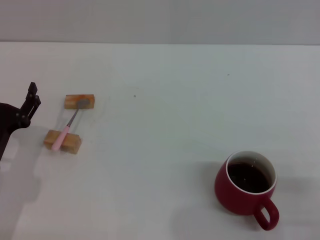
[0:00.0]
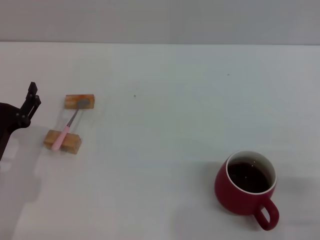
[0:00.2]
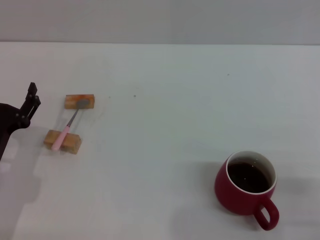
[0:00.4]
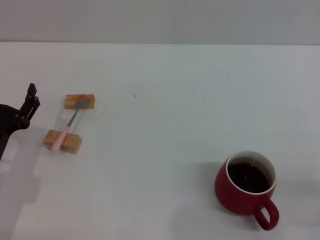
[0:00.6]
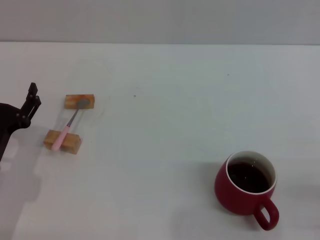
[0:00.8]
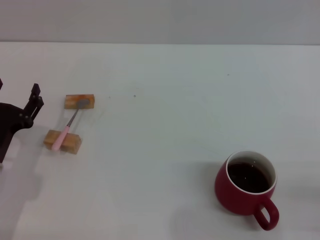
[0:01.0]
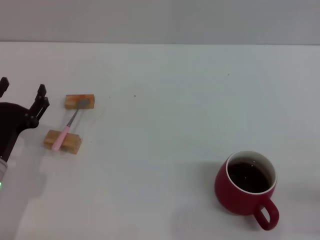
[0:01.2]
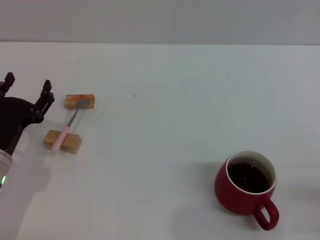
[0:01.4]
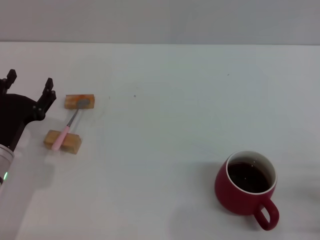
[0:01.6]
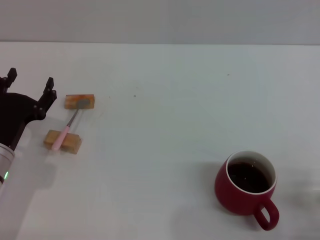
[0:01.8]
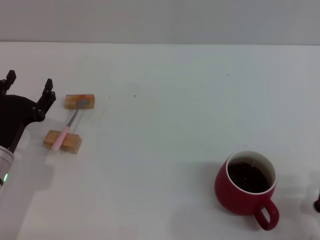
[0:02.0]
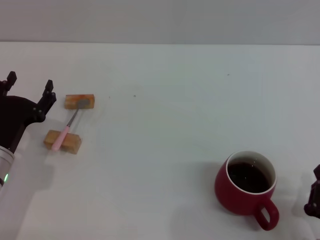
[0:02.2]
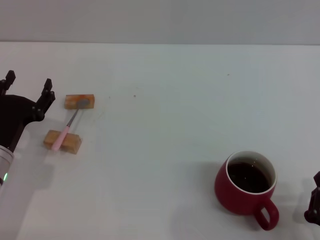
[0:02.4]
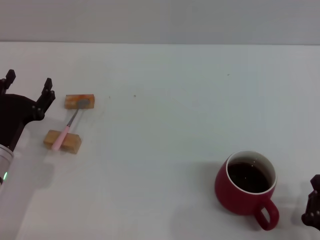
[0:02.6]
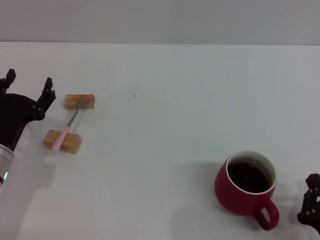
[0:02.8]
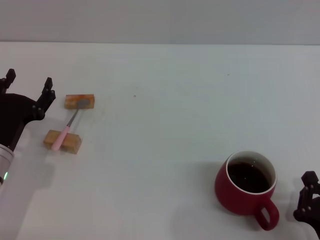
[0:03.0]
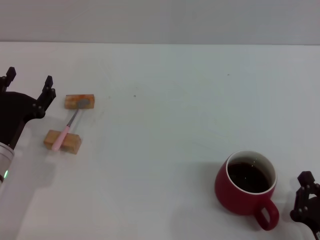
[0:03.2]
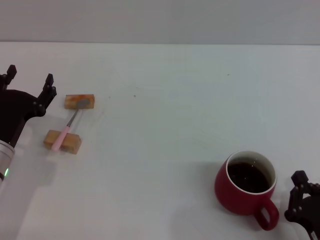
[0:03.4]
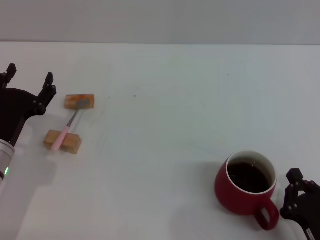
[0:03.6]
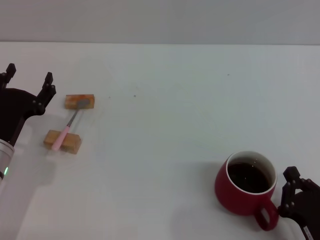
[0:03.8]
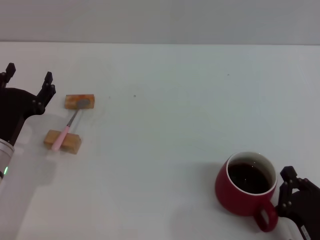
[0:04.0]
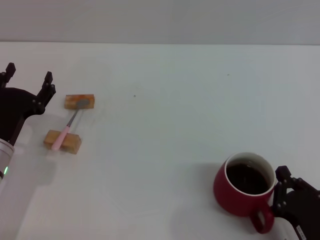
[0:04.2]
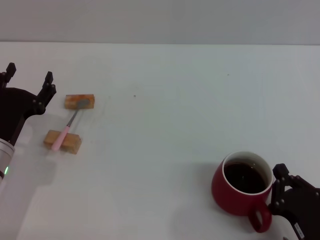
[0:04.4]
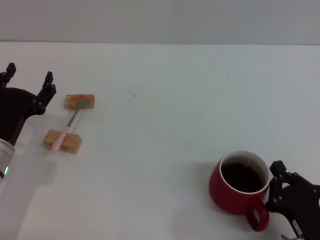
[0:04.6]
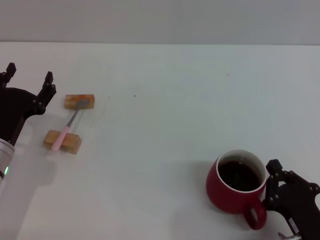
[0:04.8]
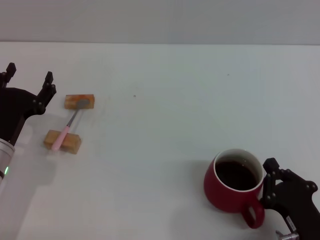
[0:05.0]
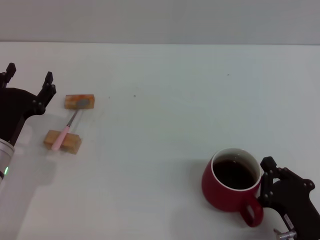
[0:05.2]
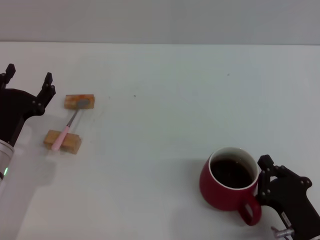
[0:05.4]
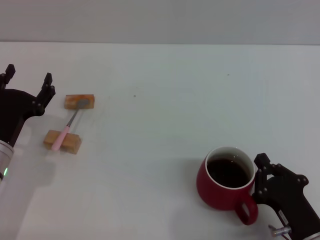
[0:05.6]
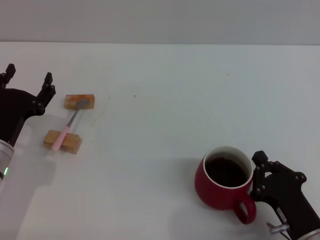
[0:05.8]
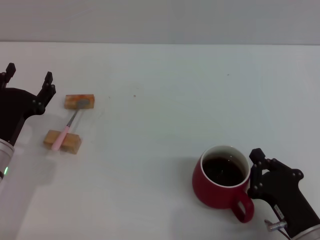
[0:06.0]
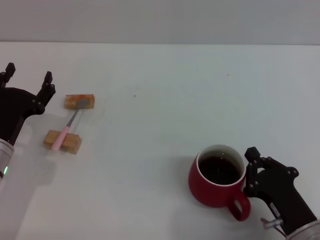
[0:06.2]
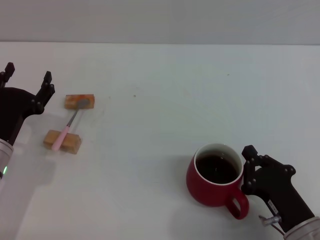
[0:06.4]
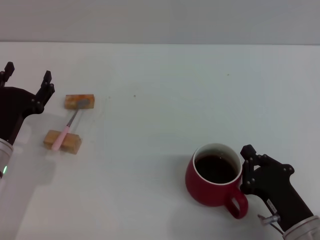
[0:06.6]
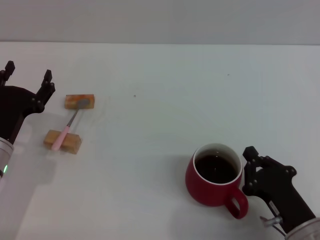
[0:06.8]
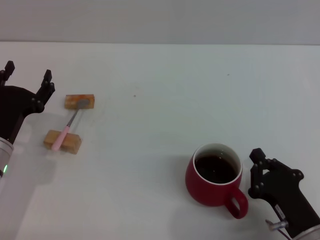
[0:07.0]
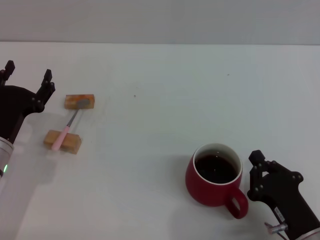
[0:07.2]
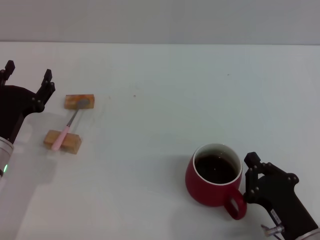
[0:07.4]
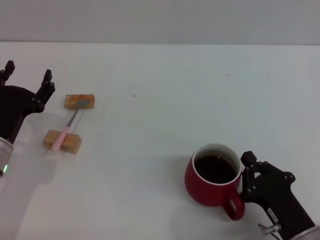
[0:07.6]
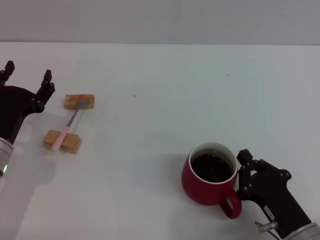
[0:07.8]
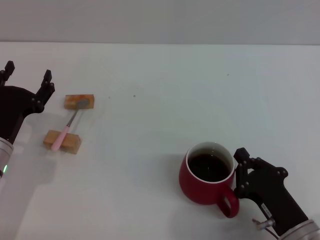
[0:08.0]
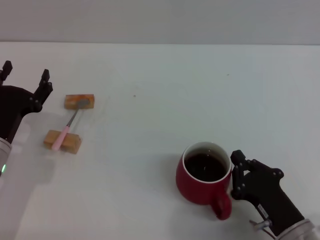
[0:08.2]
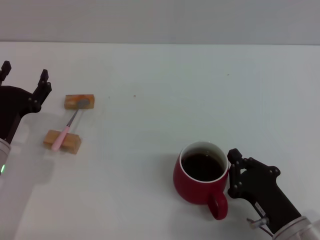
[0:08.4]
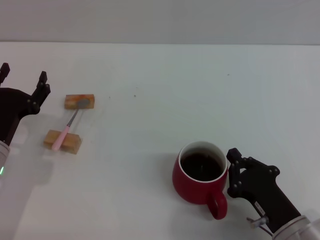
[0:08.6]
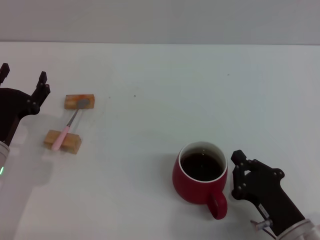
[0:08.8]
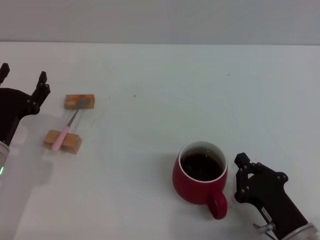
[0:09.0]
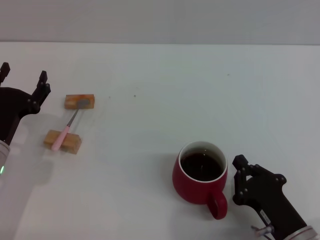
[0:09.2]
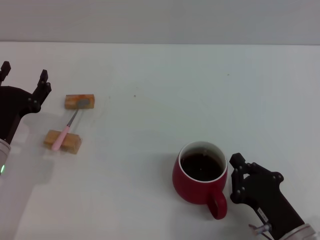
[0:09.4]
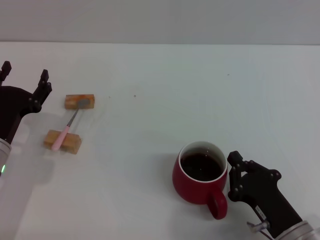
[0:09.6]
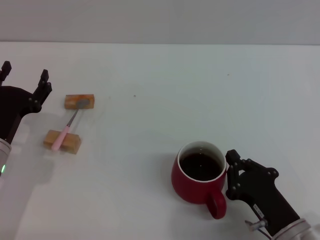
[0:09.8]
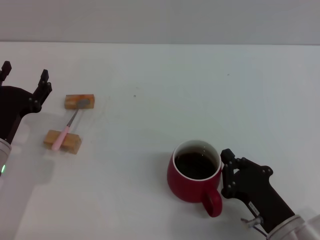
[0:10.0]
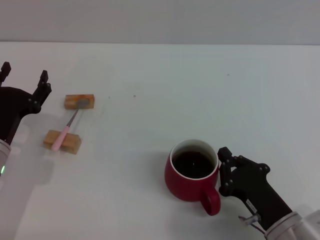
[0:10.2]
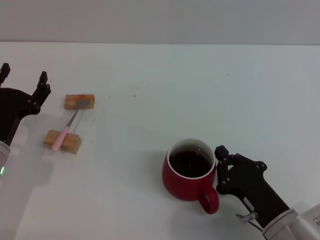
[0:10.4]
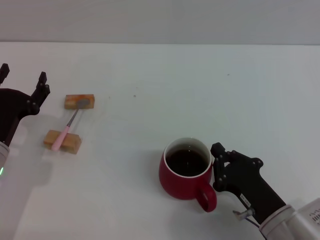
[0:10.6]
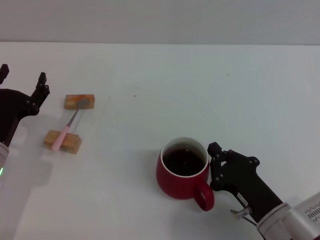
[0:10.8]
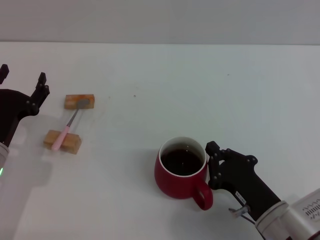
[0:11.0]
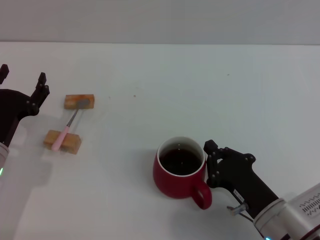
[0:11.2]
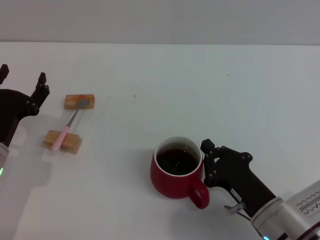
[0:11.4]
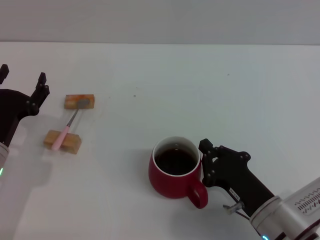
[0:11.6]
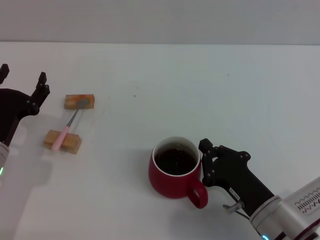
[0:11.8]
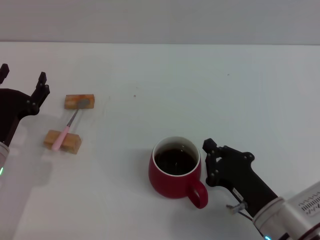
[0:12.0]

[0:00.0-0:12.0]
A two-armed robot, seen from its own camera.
Task of the whole recording: Move the red cup to the center, lift the pink spoon, stir it three times in the cup, and put the spoon into the cup.
0:01.6 to 0:03.0: The right gripper goes roughly 5 cm to the left.
0:03.0 to 0:06.0: The grippers move only a little.
0:06.0 to 0:07.6: The two grippers keep their place.
0:07.6 to 0:12.0: There are only small adjustments of the grippers.

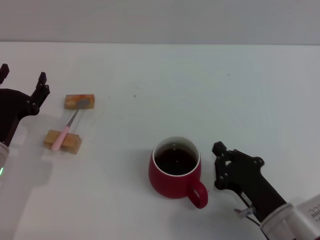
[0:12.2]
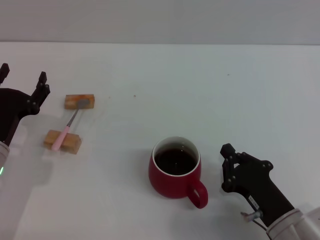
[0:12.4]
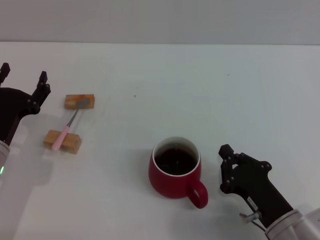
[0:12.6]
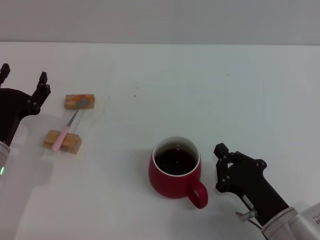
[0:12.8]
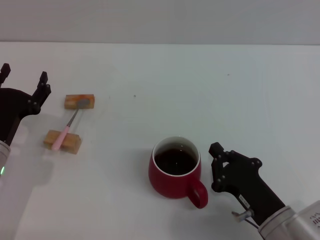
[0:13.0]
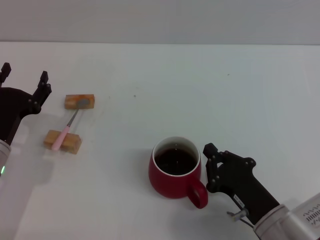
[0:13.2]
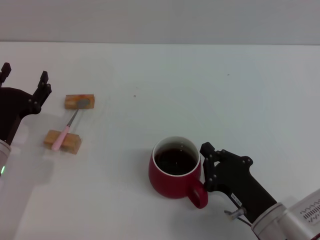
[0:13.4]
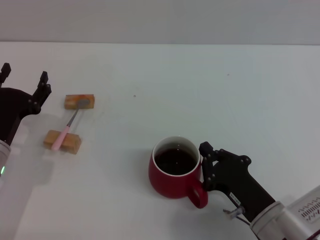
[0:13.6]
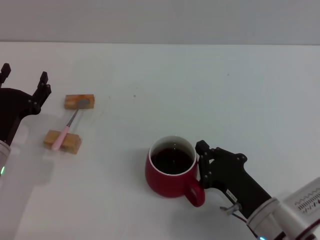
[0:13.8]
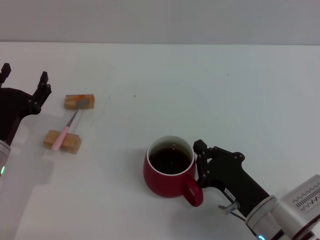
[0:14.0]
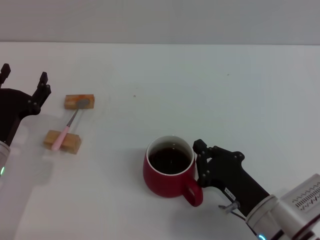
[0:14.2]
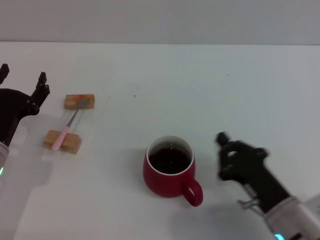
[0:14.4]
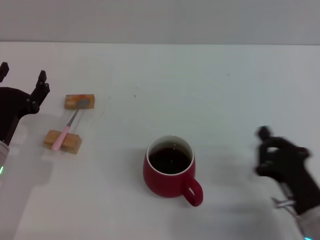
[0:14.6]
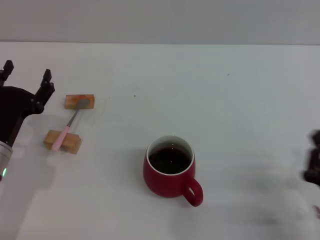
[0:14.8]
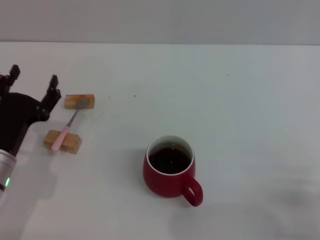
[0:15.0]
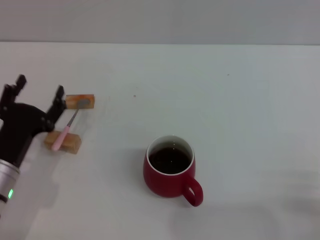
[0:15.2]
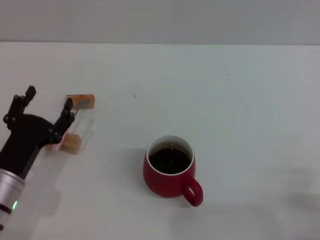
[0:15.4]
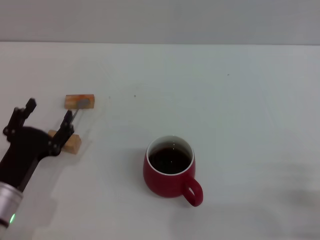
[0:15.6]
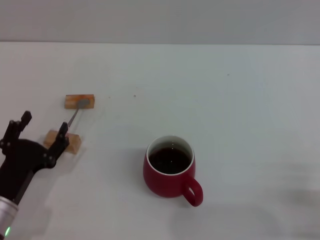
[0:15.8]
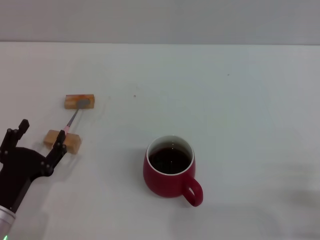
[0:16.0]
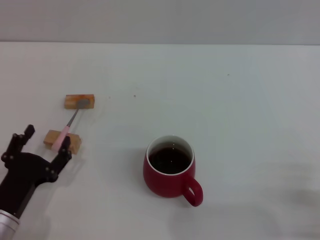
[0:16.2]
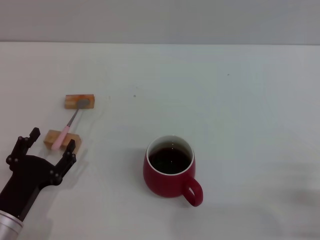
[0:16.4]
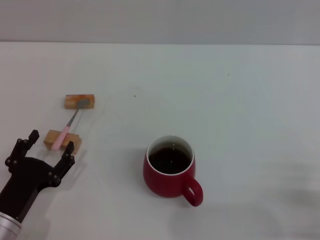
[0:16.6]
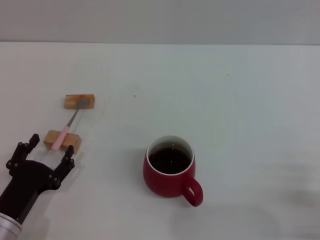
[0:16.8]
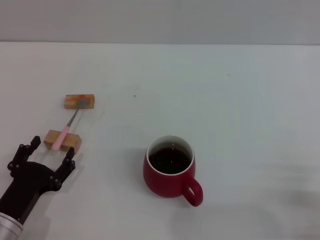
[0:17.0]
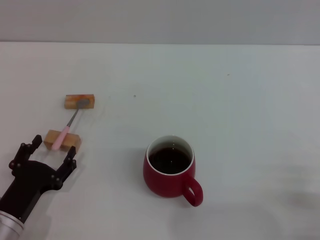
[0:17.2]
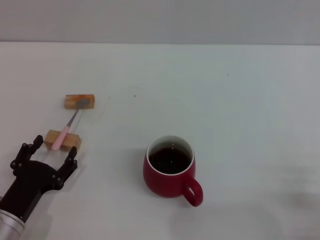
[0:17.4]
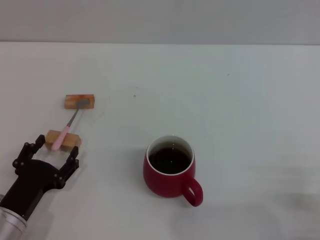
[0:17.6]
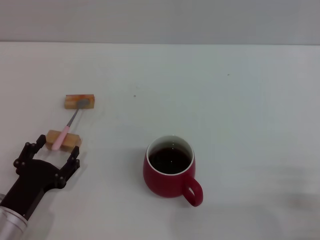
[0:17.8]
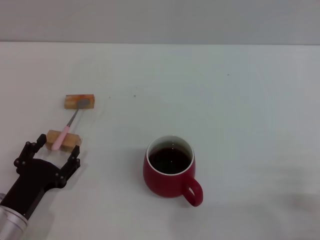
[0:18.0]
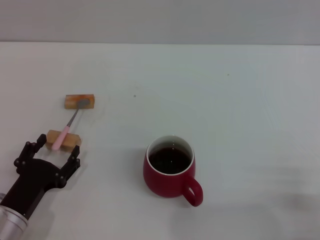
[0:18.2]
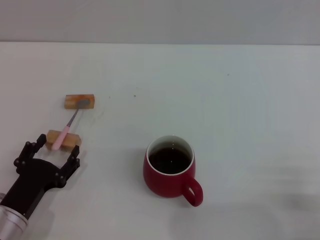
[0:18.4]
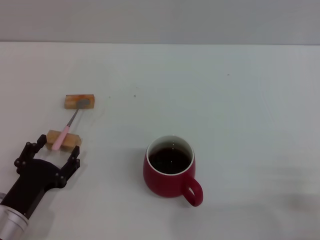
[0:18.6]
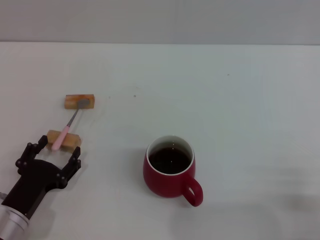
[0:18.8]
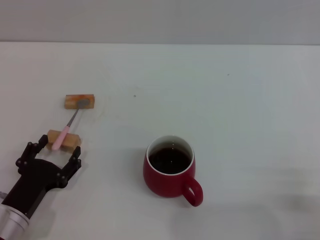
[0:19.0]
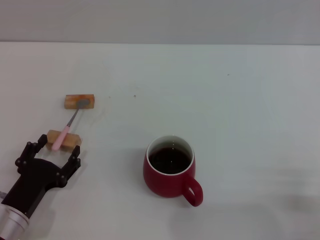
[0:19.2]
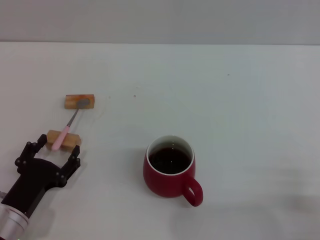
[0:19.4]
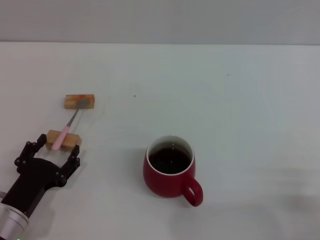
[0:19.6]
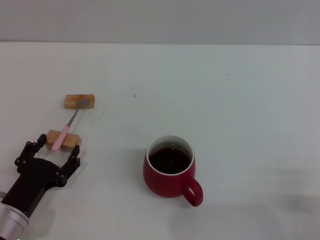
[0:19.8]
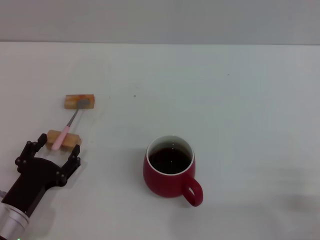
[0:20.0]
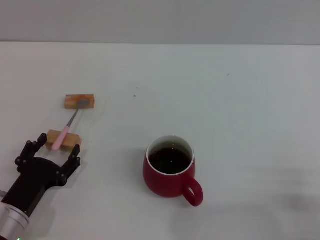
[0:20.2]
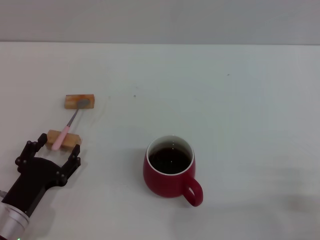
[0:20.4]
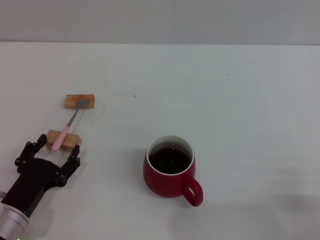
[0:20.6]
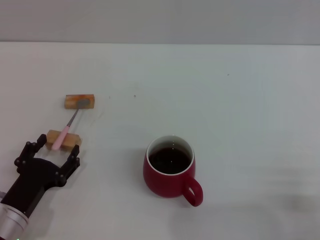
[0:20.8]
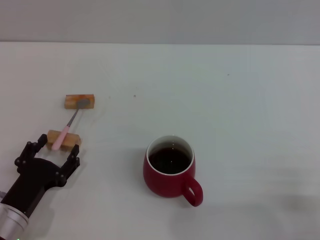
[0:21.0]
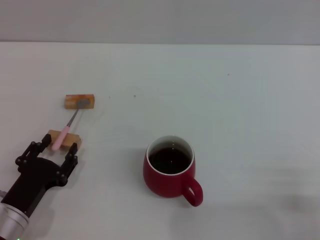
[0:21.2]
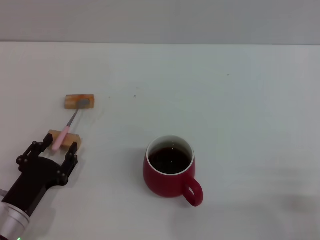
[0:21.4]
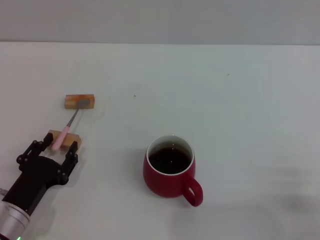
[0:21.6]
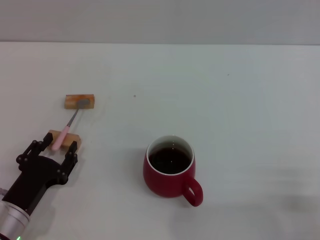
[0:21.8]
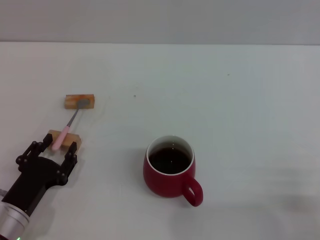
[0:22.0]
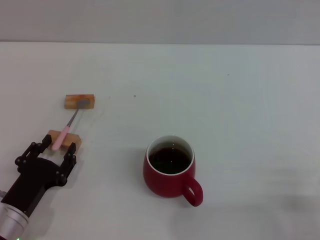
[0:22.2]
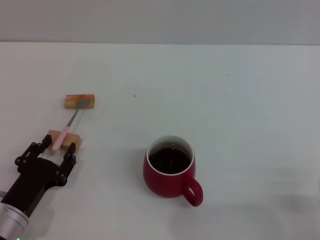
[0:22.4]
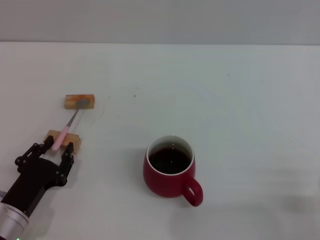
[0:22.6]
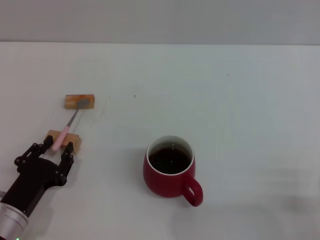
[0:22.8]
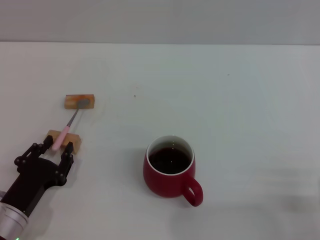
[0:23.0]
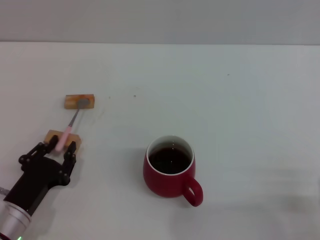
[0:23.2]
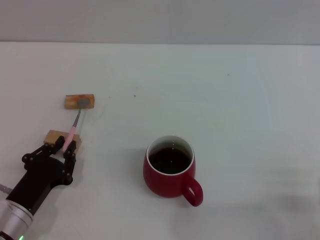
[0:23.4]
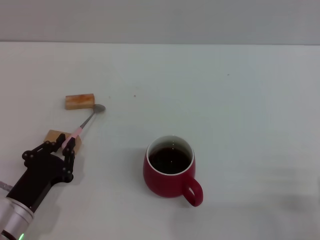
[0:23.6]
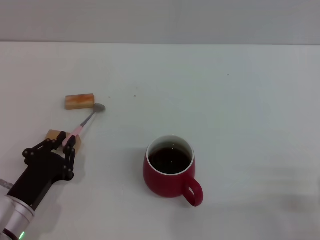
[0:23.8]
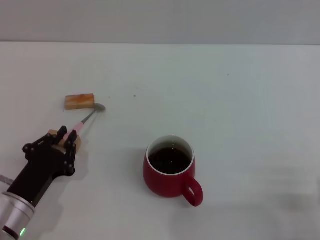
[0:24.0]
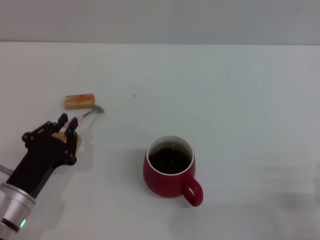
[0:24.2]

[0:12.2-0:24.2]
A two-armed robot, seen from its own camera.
Task of the whole recording: Move the red cup to the center, lift the pink spoon, stir it three times in the cup, and put the spoon into the cup.
Step, 0:12.2 to 0:14.2: Move the cup with coffee to the center of view with the right gripper.
0:12.2 to 0:13.8: The grippers stay close to where they were, moving slightly.
0:13.8 to 0:15.2: The right gripper moves to the right and backward, roughly 15 cm.
0:15.2 to 0:16.6: The left gripper travels backward by about 5 cm.
0:16.6 to 0:18.2: Neither gripper changes place.
0:18.2 to 0:22.6: Both grippers stay put.
0:22.6 to 0:24.2: The left gripper closes up.
